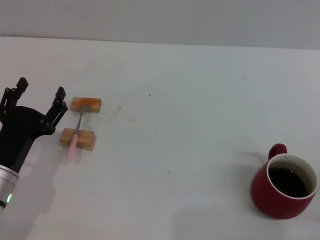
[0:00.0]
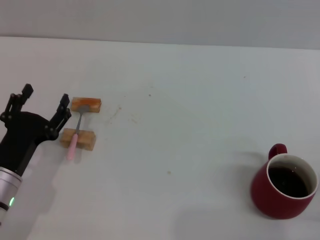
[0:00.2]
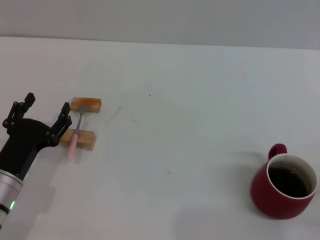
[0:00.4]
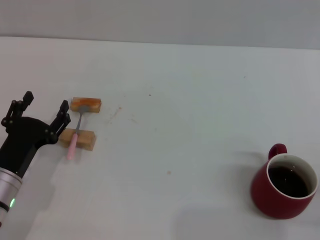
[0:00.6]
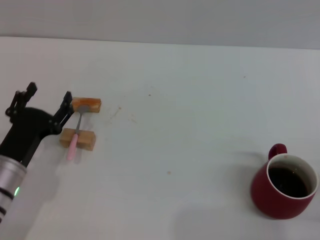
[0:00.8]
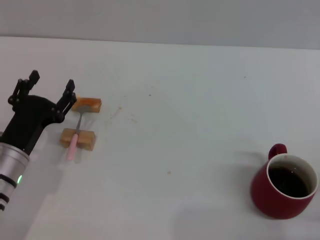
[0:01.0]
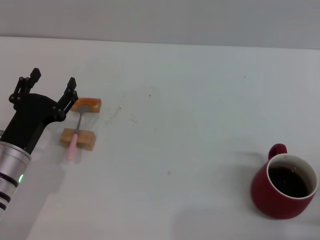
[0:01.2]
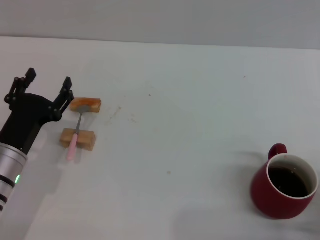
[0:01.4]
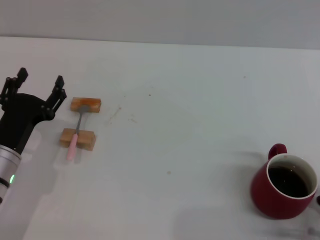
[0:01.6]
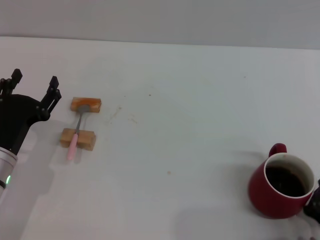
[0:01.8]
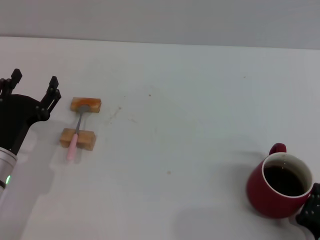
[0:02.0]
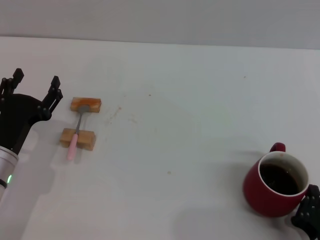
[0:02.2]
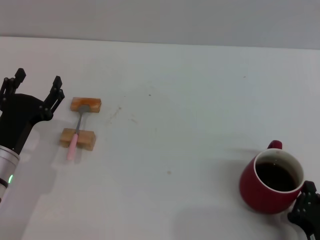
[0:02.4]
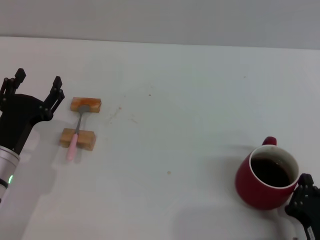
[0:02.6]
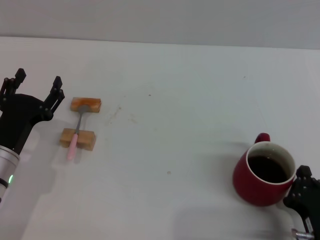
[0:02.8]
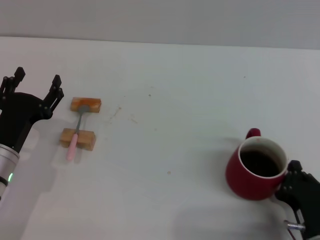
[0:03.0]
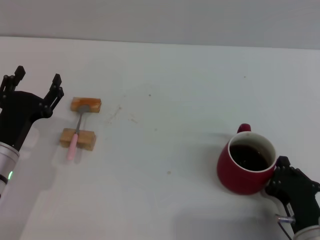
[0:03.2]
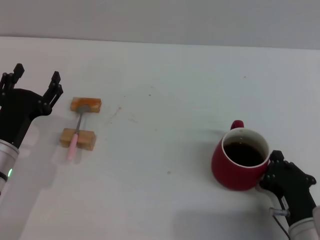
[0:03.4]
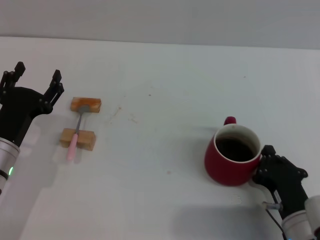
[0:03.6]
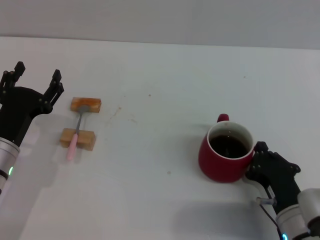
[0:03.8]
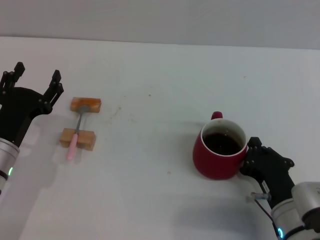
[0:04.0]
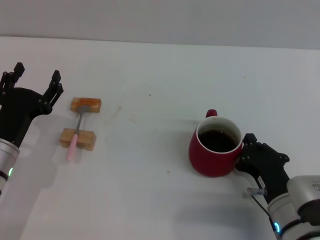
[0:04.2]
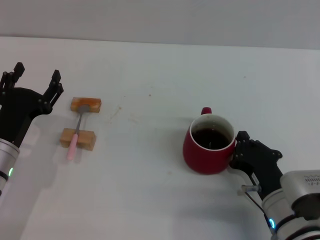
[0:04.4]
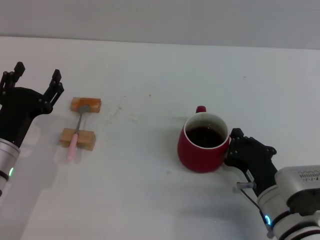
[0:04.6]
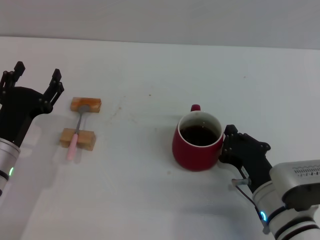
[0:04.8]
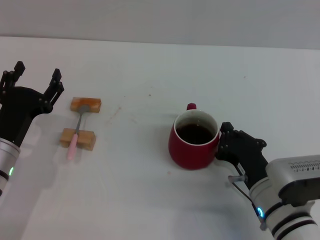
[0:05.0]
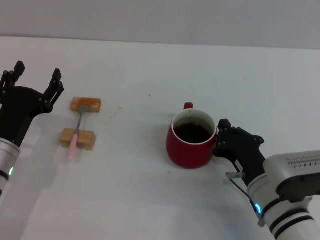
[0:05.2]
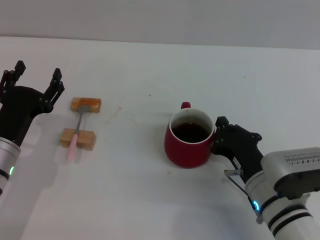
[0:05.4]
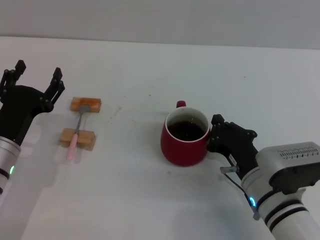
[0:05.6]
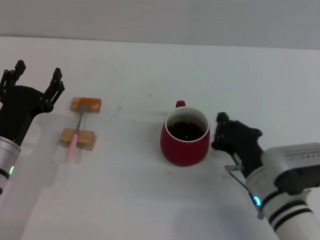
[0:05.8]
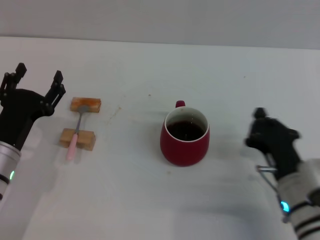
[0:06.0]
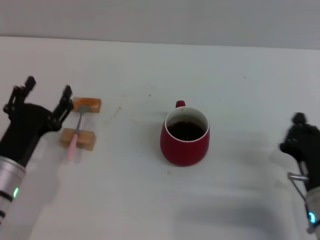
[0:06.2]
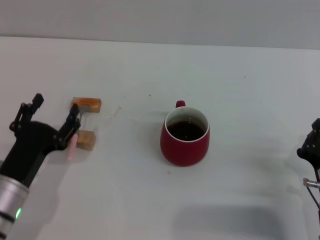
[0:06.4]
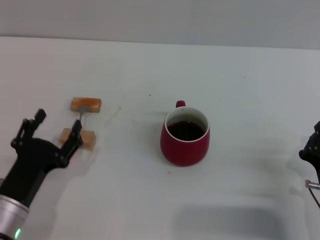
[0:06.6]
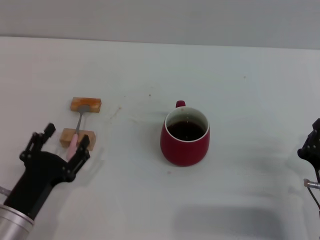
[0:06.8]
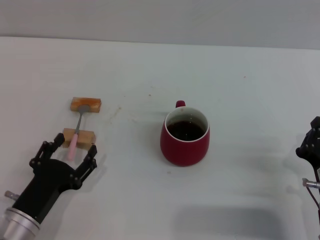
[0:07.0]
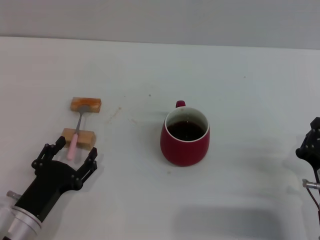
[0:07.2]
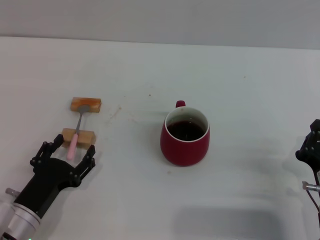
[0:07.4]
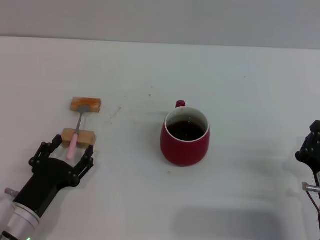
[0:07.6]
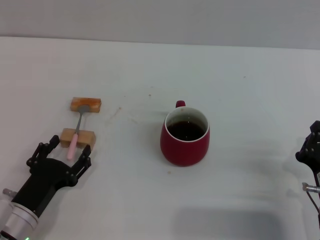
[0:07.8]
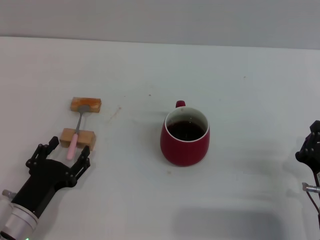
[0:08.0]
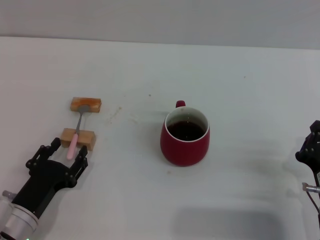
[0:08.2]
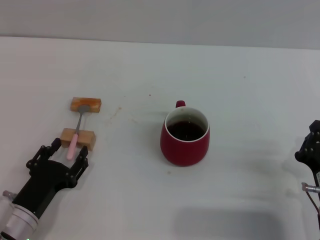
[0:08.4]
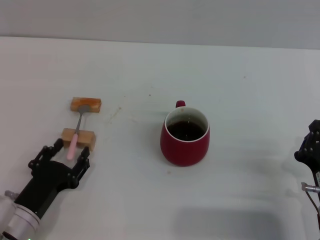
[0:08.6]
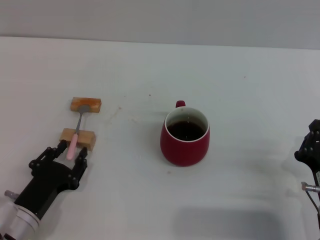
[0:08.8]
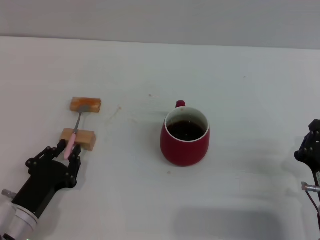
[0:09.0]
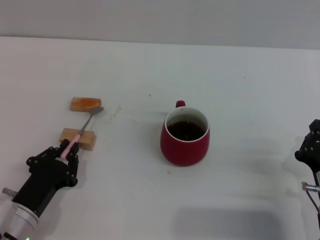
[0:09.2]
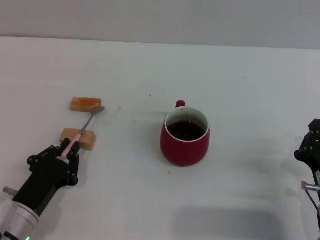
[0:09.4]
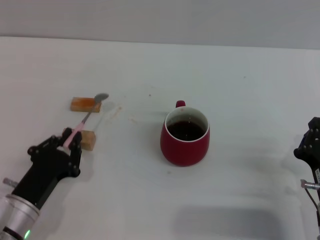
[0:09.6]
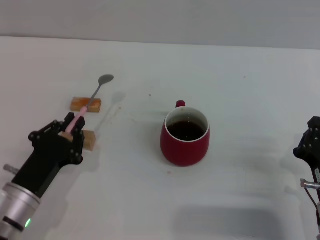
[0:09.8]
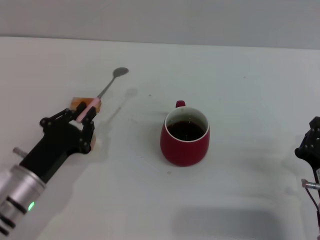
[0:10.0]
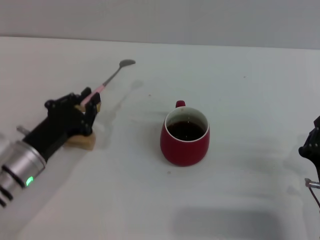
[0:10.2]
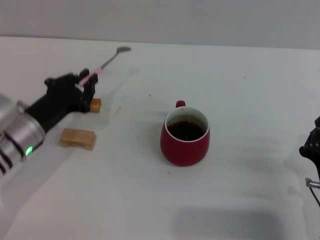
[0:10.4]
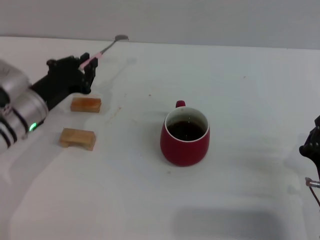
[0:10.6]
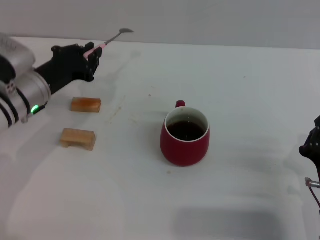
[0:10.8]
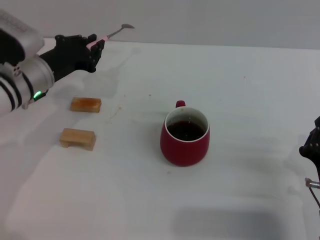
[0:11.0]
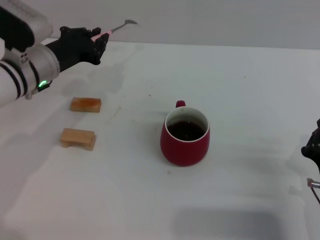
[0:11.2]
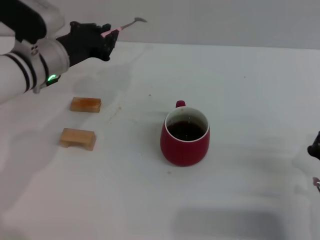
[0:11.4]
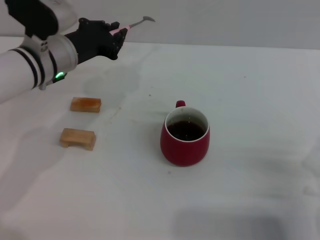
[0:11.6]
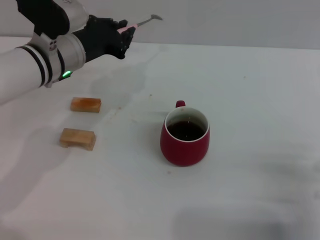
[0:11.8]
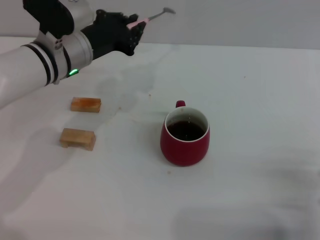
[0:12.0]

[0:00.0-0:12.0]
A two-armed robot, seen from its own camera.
Task of the whole recording: Move the red cup to the center, lift the pink spoon, stir it three times in the cup, and put the spoon into the cup.
Step, 0:00.0 to 0:05.6: Move the cup with coffee to the center of view with the right gripper.
Step, 0:06.0 to 0:10.4: Pick up the spoon with the left gripper.
0:00.0 to 0:01.6: The right gripper shifts some 5 cm to the left.
0:01.6 to 0:03.0: The grippers move only a little.
0:03.0 to 0:04.4: The right gripper moves forward, about 5 cm.
0:04.4 to 0:06.0: There are only small adjustments of the grippers.
0:06.0 to 0:07.6: The left gripper shifts some 5 cm backward.
0:07.6 to 0:09.0: The left gripper closes its fingers.
0:09.0 to 0:10.4: The left gripper is displaced forward and upward by some 15 cm, and closes its fingers.
0:10.4 to 0:12.0: The left gripper goes about 15 cm upward, forward and to the right.

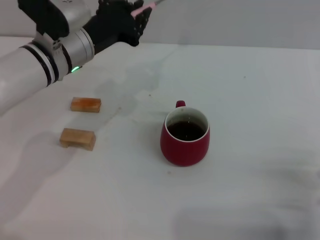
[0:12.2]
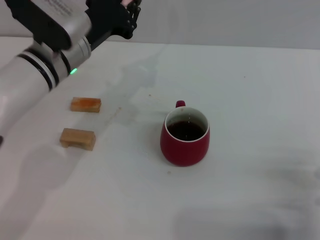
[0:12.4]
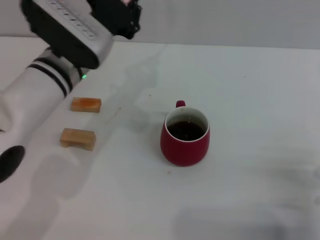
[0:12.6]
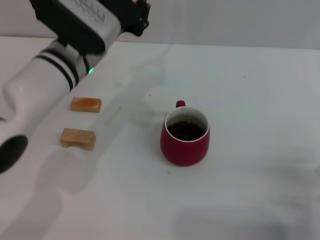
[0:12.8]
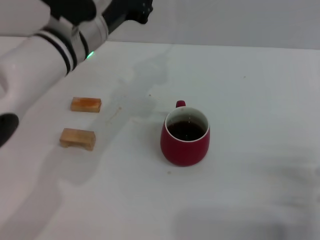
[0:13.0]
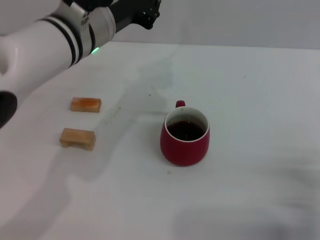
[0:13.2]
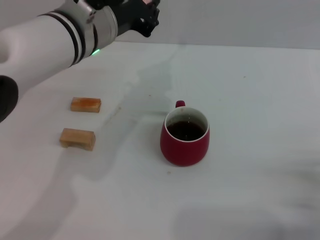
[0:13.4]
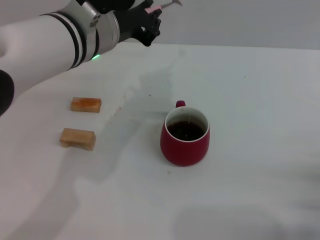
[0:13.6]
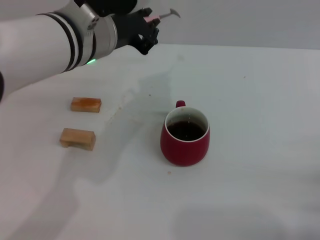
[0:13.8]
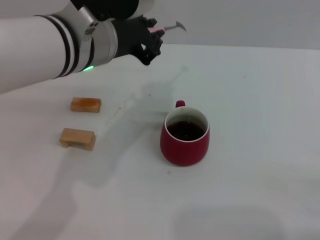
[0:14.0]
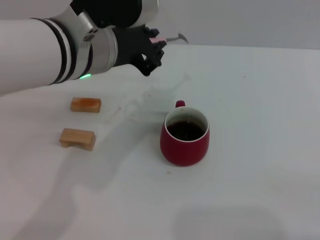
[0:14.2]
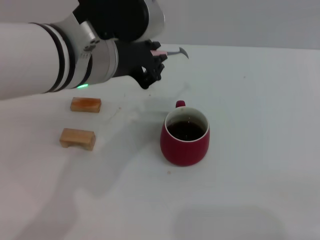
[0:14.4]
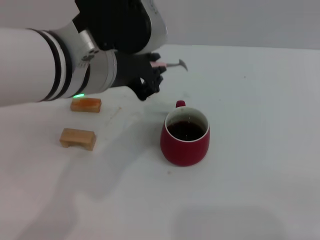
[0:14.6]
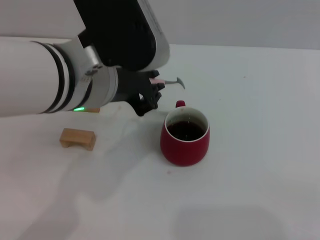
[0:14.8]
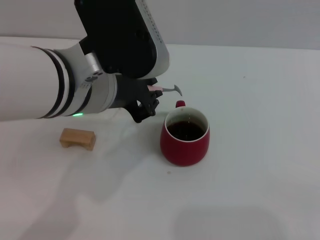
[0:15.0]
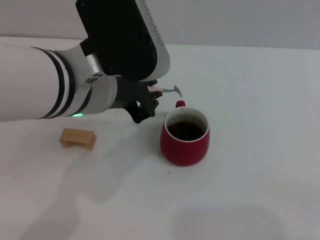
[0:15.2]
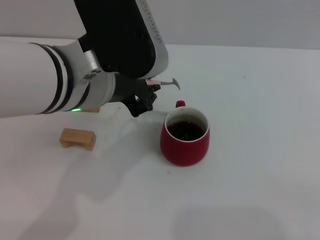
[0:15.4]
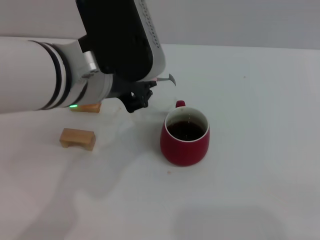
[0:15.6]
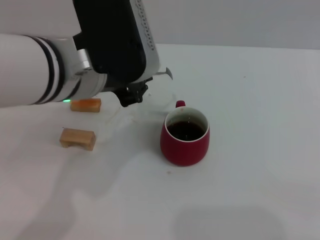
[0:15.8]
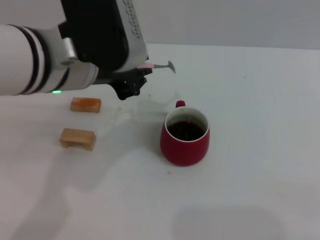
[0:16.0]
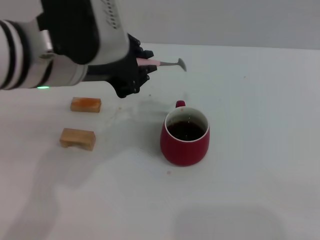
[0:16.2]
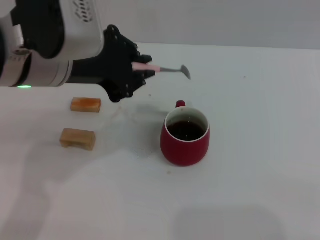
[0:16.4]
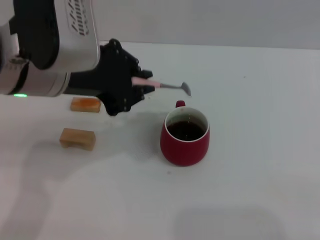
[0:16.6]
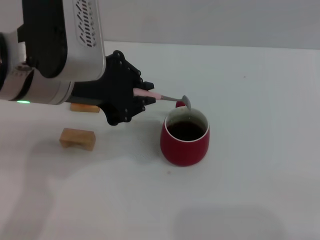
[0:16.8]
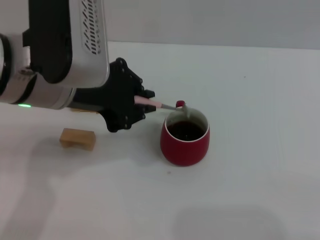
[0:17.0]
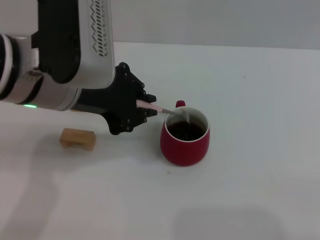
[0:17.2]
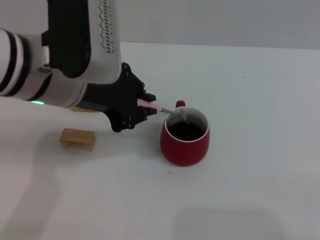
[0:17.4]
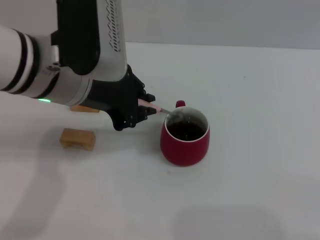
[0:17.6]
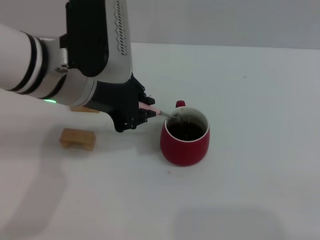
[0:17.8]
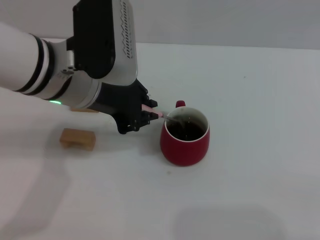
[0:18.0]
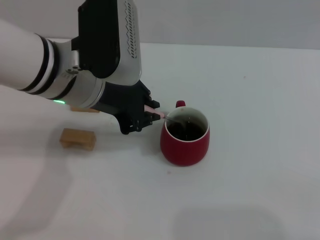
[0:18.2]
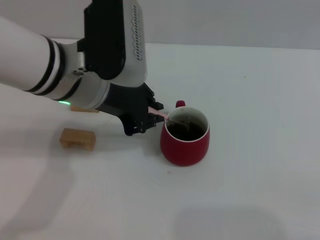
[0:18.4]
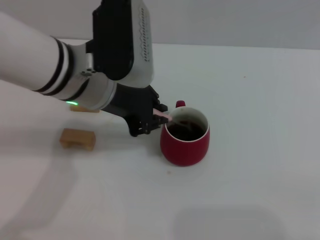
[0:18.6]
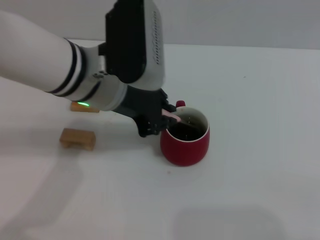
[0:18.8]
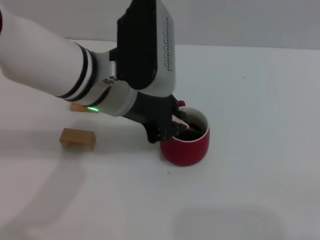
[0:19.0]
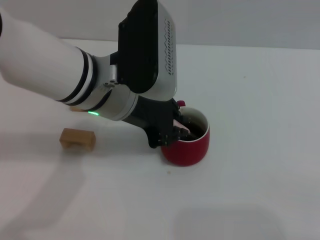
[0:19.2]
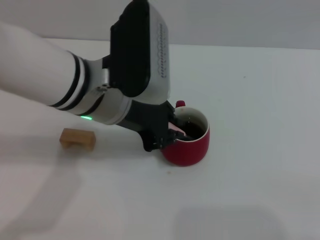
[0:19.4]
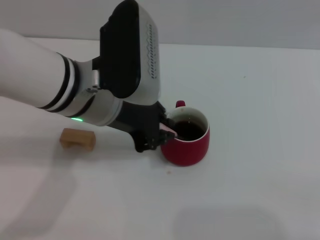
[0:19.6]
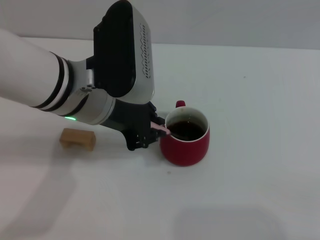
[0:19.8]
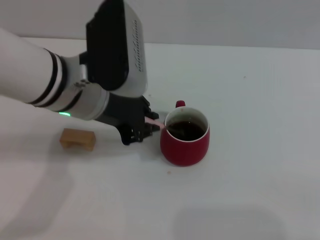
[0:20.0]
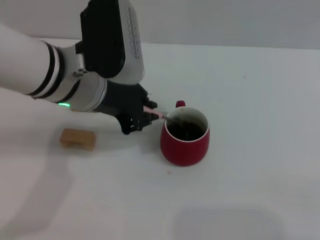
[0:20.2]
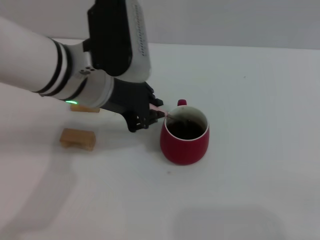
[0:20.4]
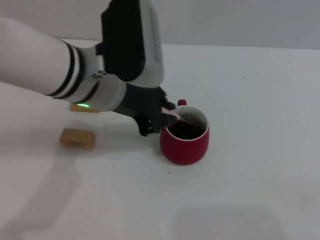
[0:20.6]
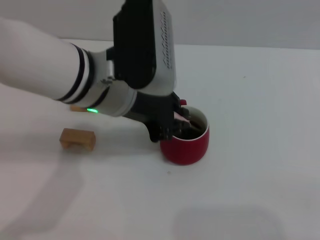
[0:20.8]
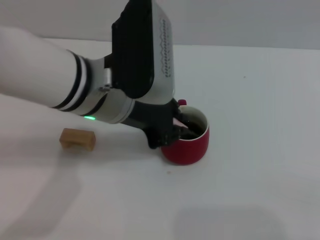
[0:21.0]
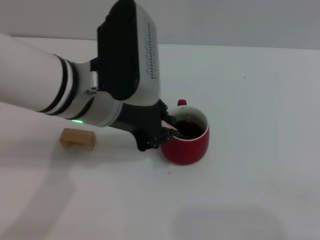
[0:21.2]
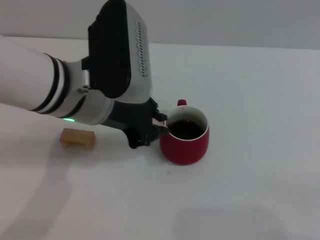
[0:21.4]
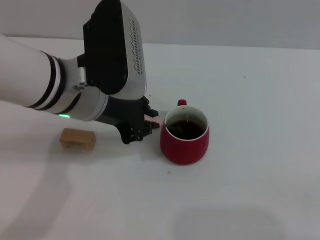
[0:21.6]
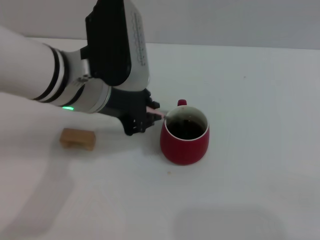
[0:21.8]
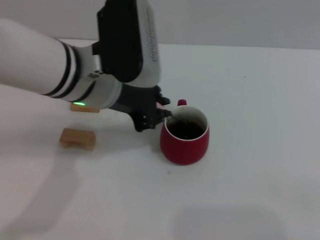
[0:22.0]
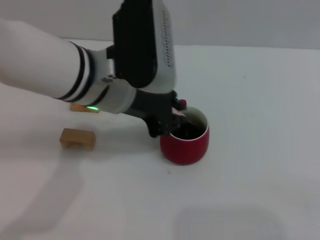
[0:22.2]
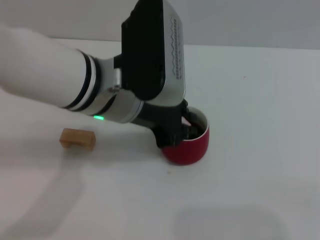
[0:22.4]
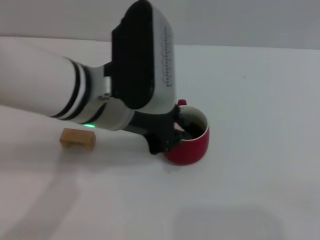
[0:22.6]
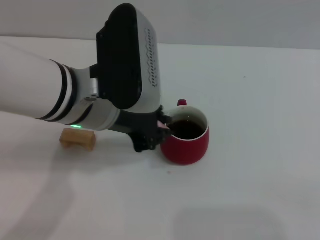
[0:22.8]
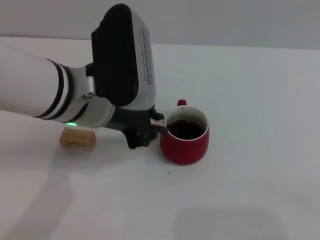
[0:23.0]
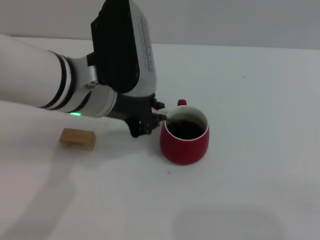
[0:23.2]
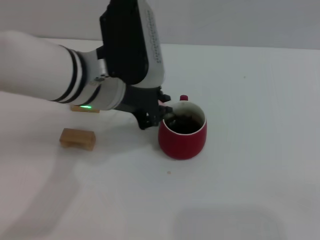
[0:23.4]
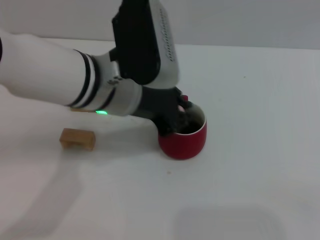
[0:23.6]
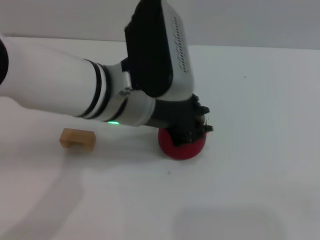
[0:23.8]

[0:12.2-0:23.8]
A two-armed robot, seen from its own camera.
Task of the whole recording: Move the red cup to the center, lift the pink spoon, stir it three times in the cup, and put the spoon into the cup.
0:12.2 to 0:13.6: The left gripper goes approximately 10 cm upward and to the right.
0:13.6 to 0:15.0: The left gripper travels backward by roughly 5 cm. Meanwhile the right gripper goes roughly 5 cm to the right.
0:15.0 to 0:16.6: The left gripper heads to the left, covering approximately 5 cm.
0:16.6 to 0:18.0: The left gripper shifts by about 5 cm.
0:18.0 to 0:23.8: The grippers stay close to where they were, moving slightly.
